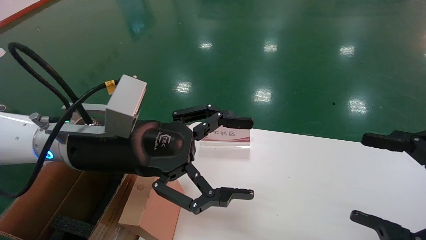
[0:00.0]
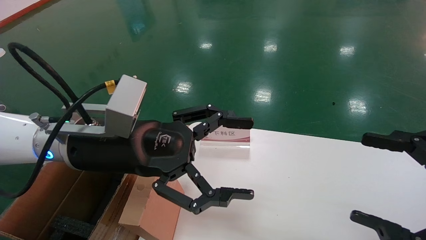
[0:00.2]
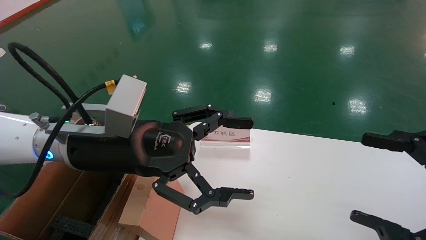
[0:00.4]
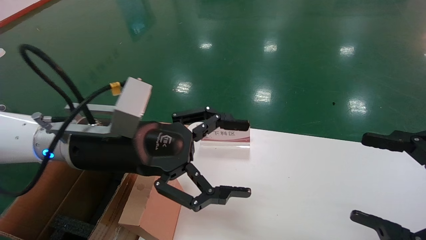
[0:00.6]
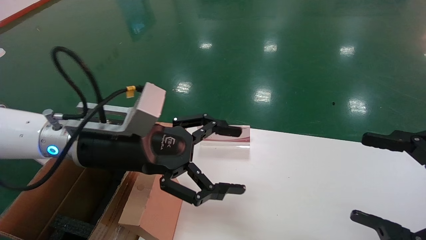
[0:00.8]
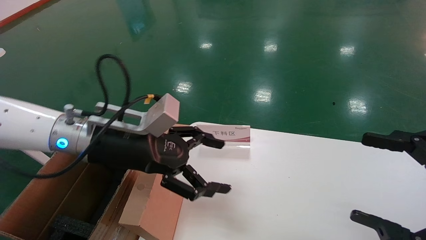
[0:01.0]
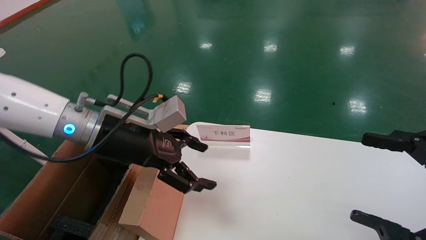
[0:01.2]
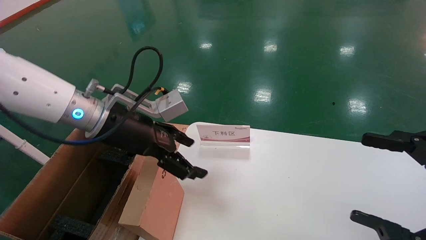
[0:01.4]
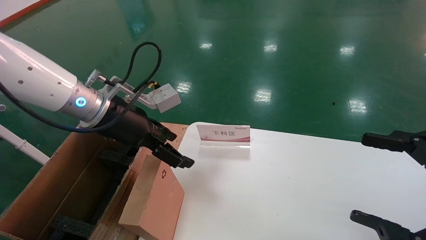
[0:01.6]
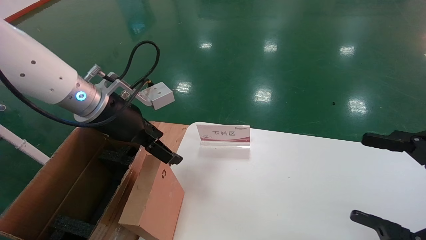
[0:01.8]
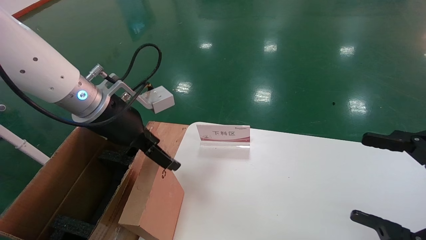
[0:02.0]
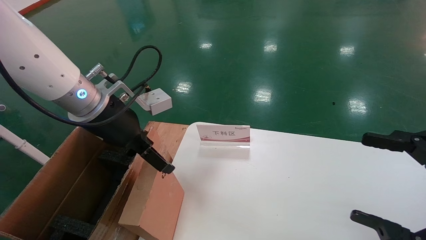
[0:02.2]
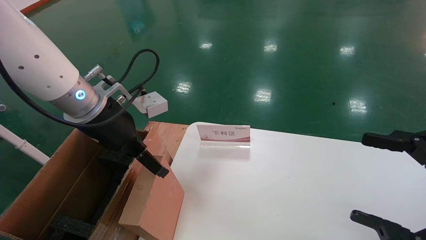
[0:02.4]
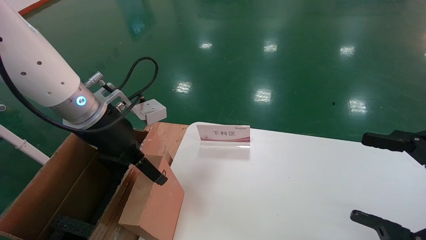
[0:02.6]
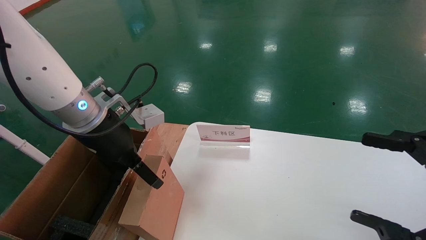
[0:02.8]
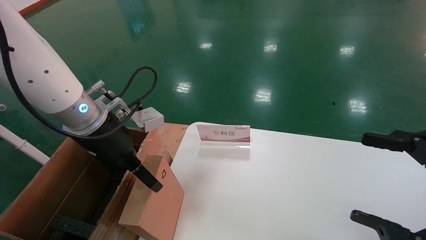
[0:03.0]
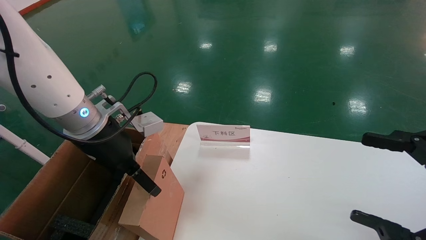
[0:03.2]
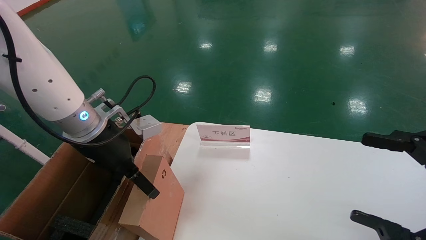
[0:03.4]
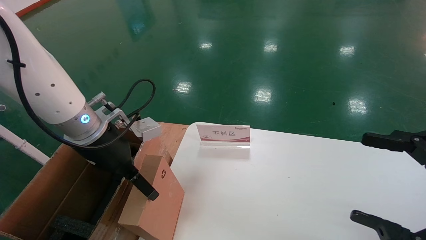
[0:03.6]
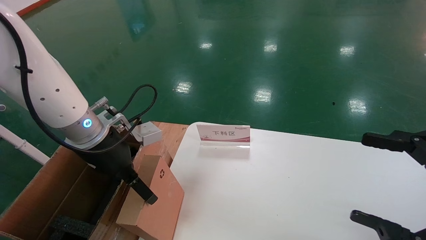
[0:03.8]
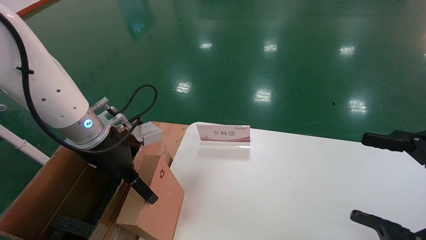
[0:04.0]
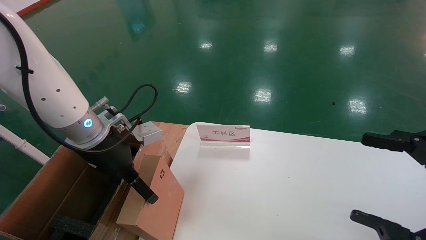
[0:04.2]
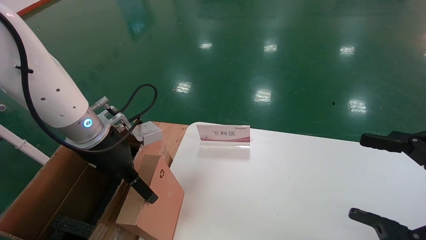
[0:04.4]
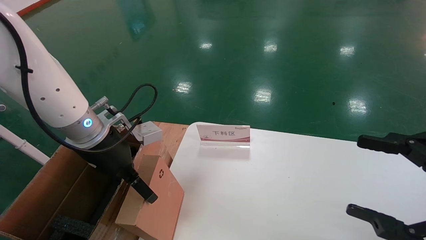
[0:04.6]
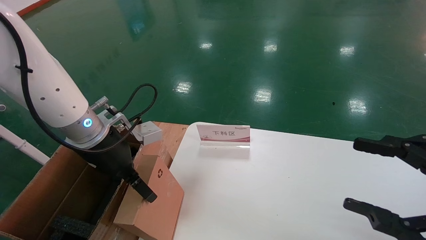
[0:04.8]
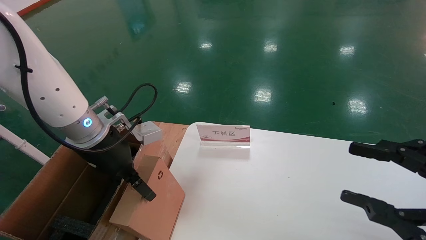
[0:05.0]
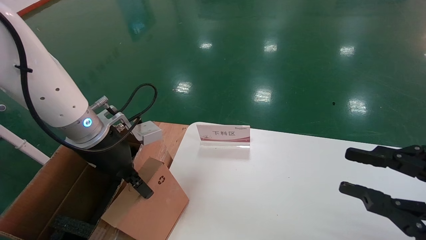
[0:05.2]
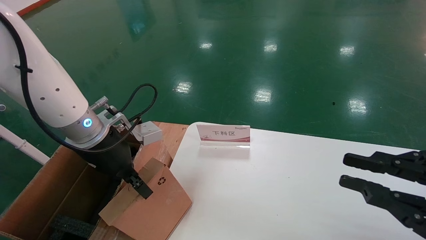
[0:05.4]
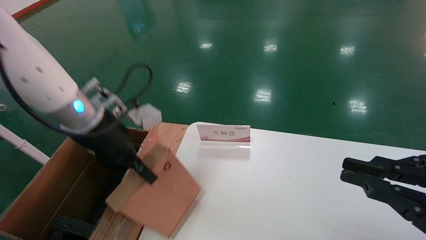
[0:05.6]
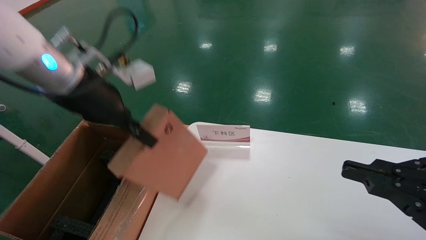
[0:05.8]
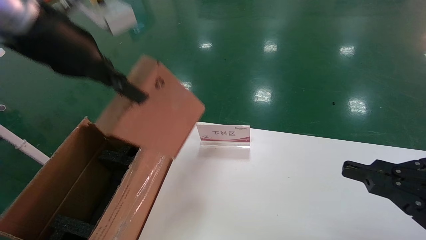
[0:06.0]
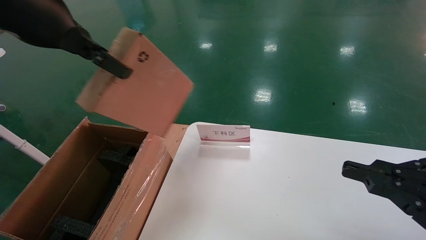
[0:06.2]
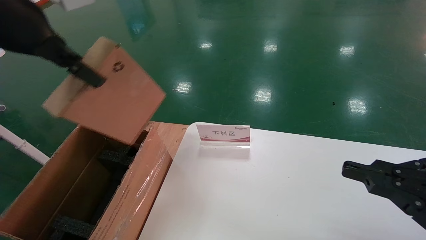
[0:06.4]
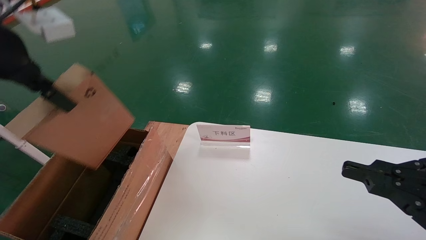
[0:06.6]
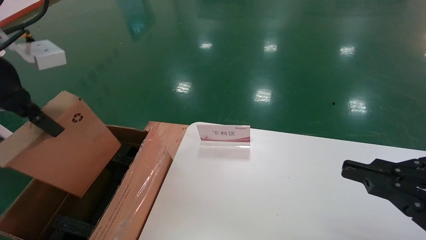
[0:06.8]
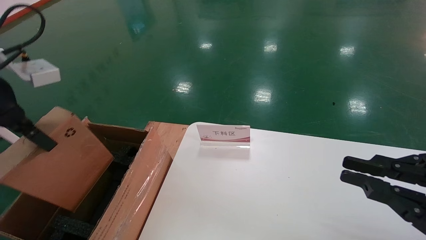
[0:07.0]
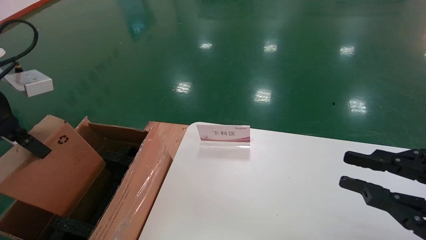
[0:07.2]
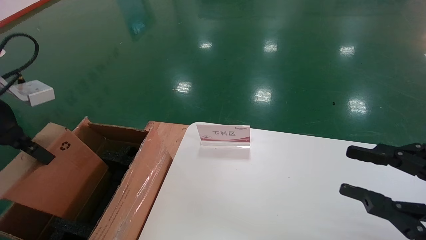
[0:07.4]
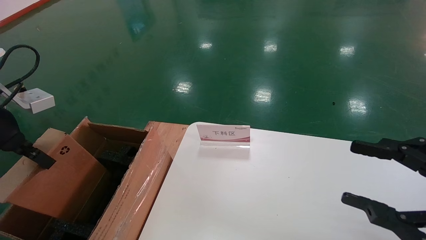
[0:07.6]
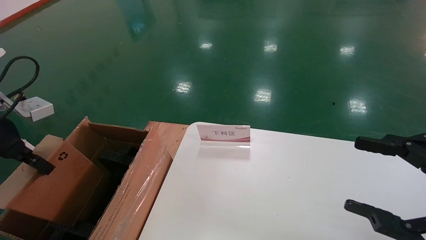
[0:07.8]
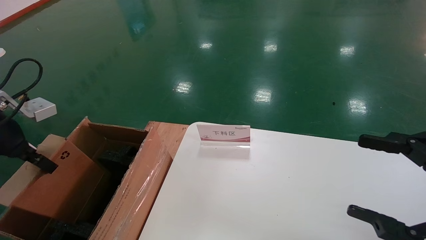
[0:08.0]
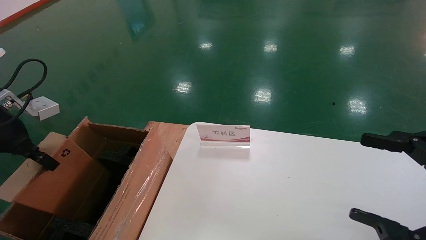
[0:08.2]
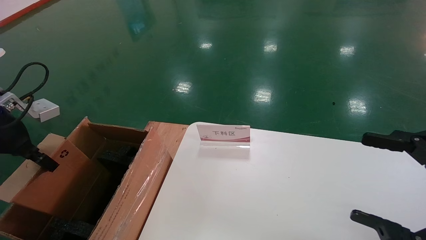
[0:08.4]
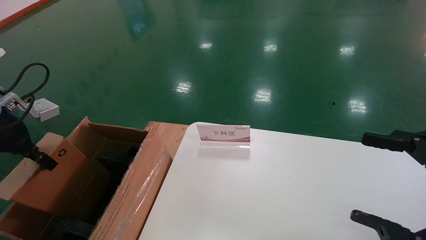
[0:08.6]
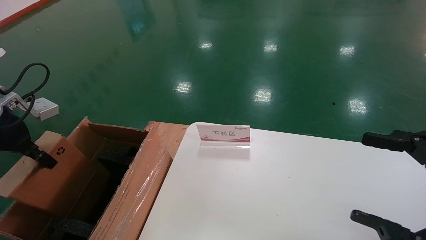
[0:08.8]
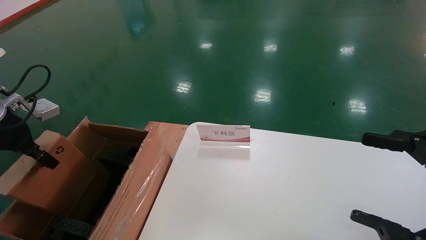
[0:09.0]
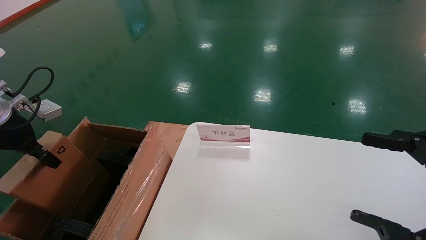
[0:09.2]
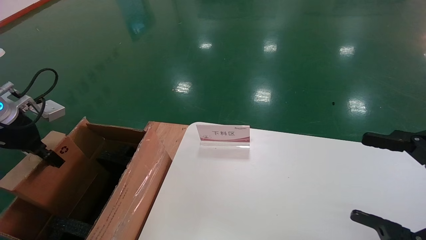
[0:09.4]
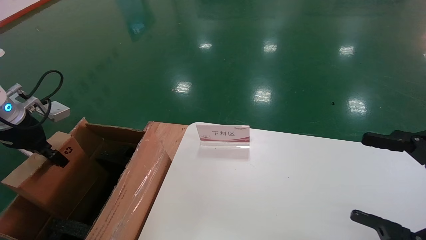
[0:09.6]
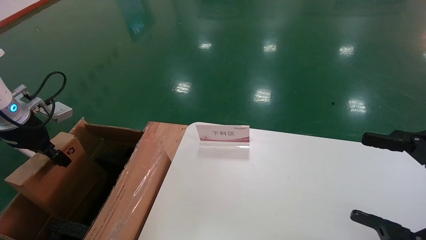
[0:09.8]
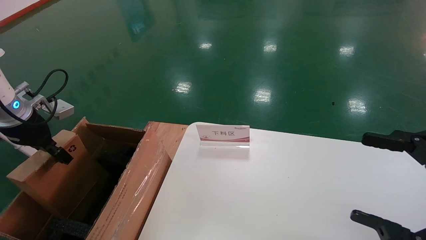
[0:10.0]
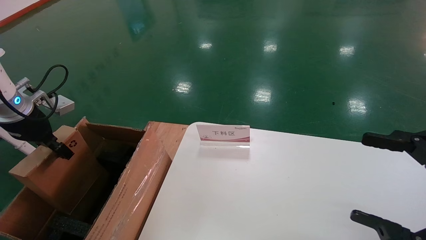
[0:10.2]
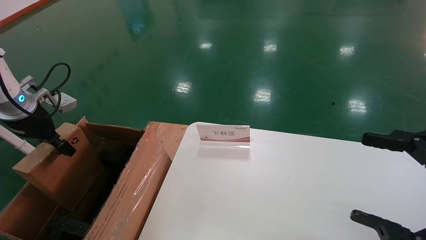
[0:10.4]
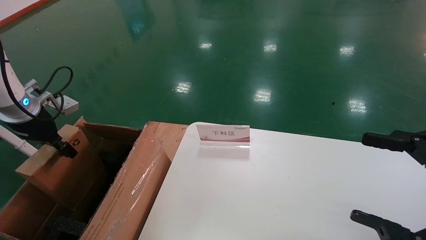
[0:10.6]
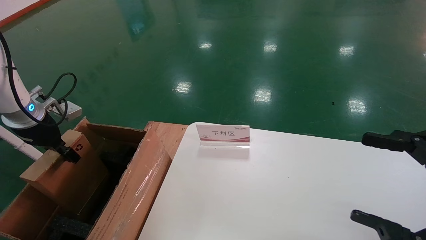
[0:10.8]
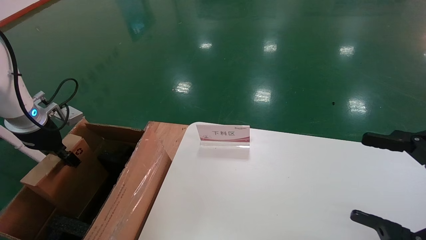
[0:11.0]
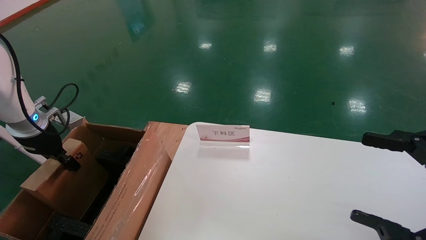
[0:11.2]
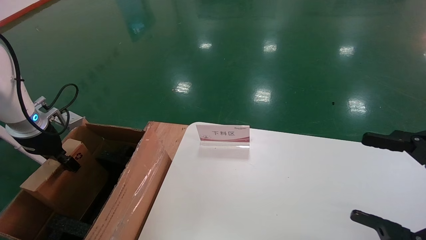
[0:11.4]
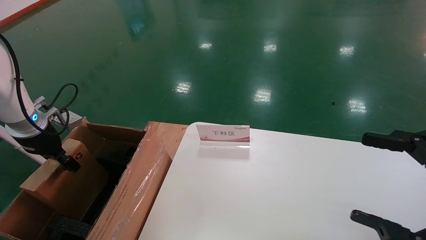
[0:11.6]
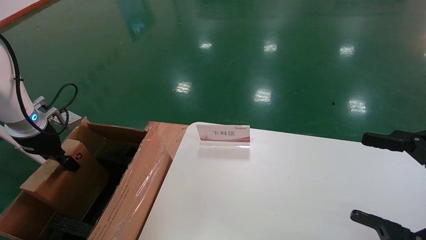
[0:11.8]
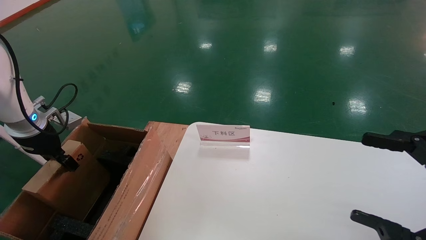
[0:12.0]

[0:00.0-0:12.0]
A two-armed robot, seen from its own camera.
Task of the whole recording: pick up the small cardboard box and load it into the large cardboard box.
Step, 0:01.0 to 0:06.0: Pick up the mouse and power cord box.
0:00.0 to 0:01.6: The left gripper moves forward, about 5 cm.
0:03.0 to 0:04.4: The grippers move only a little.
0:04.4 to 0:06.0: The left gripper travels upward by about 15 cm, and closes its fingers. Meanwhile the right gripper closes.
0:06.0 to 0:07.6: The left gripper is displaced to the left and downward by some 20 cm; the right gripper opens.
0:07.6 to 0:09.0: The right gripper opens up. The left gripper ends up approximately 10 cm from where it was.
0:09.0 to 0:10.4: The left gripper is displaced forward by some 5 cm.
0:10.4 to 0:12.0: There are only small adjustments of the grippers.

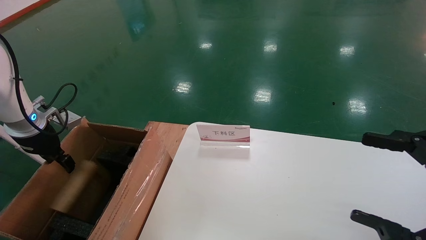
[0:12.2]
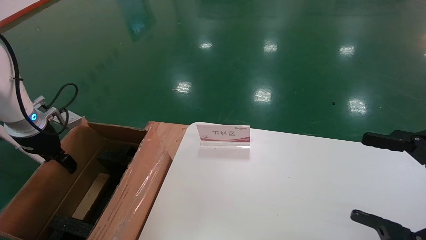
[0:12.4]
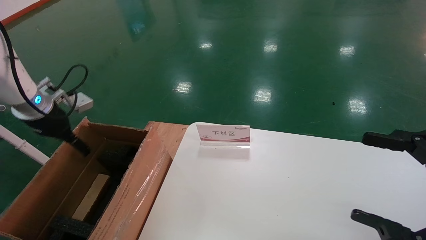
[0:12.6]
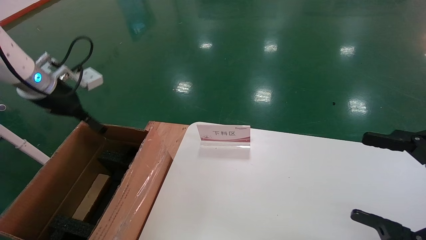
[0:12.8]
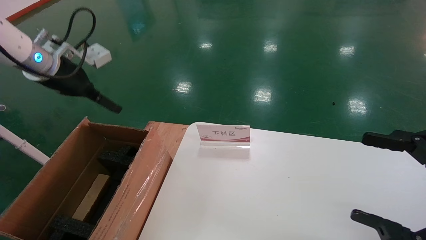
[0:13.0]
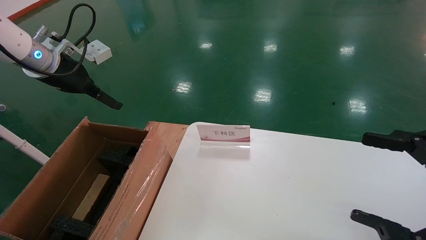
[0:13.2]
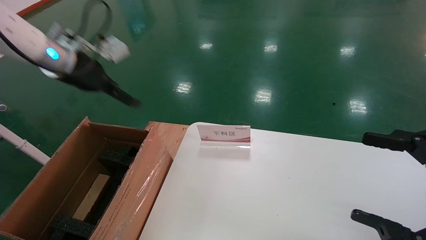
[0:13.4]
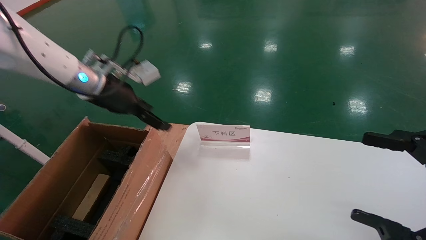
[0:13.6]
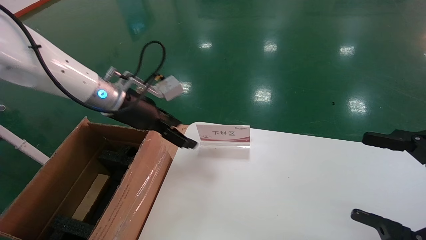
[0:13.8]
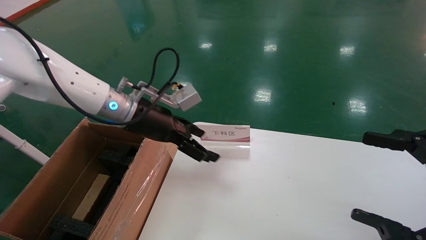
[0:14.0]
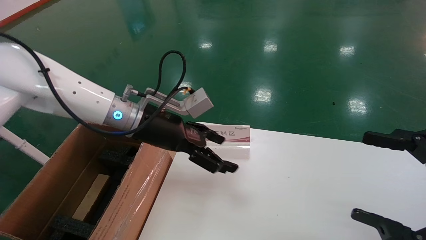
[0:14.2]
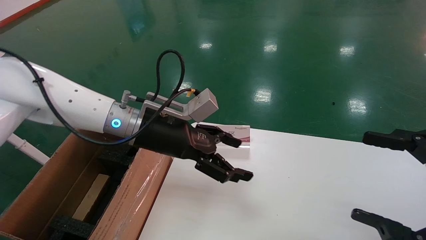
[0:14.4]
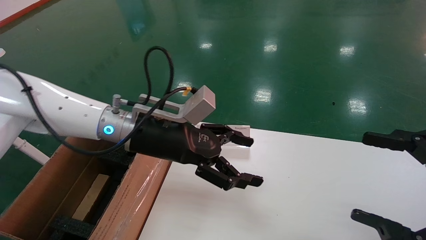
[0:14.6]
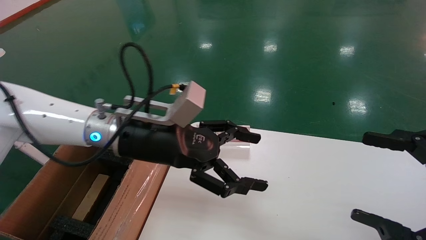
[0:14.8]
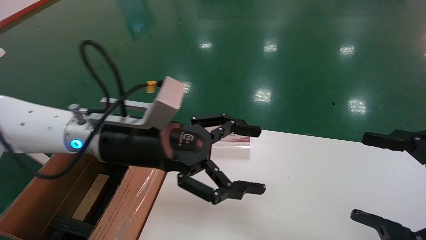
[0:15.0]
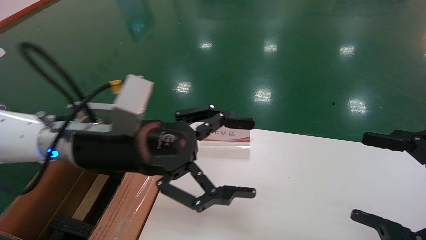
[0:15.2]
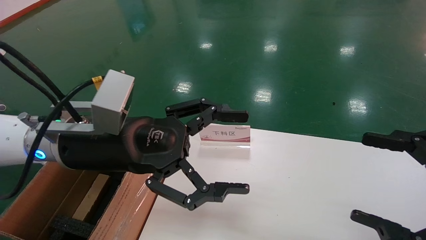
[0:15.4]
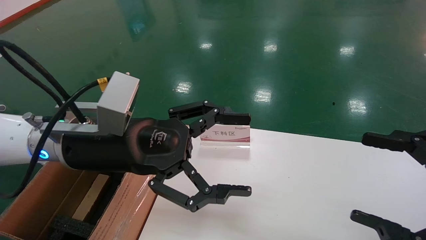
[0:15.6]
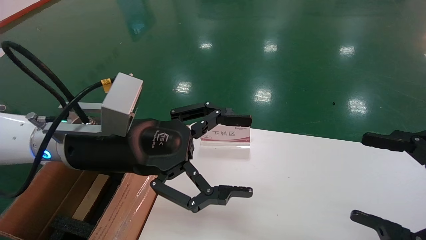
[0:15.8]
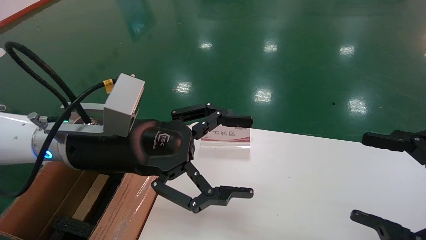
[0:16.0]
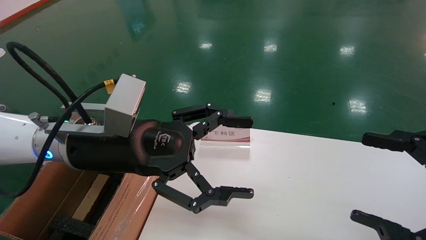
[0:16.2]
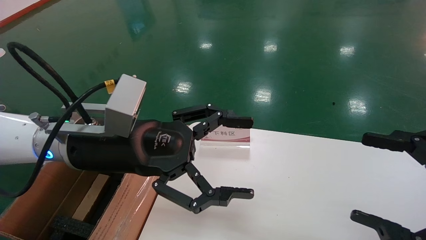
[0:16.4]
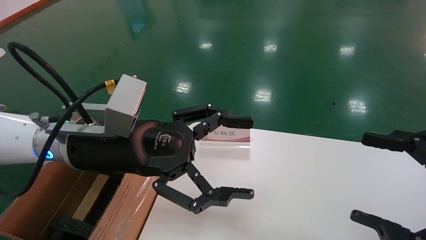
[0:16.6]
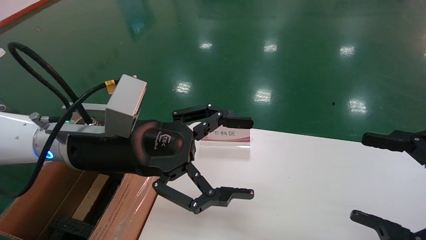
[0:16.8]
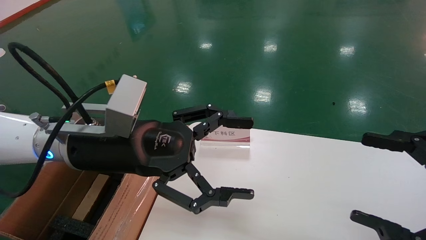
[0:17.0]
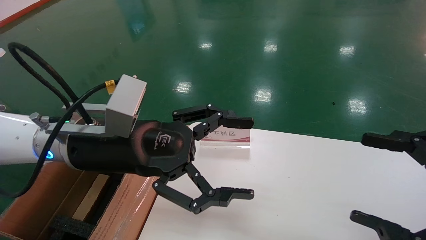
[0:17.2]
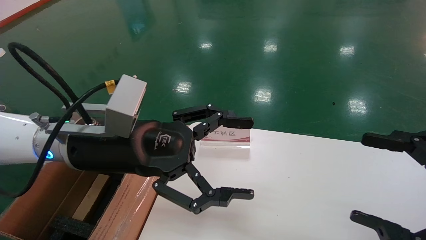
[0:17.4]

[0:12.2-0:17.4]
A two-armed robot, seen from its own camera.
Task of the whole recording: pick up the small cardboard box and load it into the large cardboard box.
0:12.2 to 0:14.0: The left gripper shifts some 25 cm to the right, and opens.
0:14.0 to 0:15.6: The left gripper heads backward, covering approximately 15 cm.
0:15.6 to 0:17.4: The two grippers keep their place.
